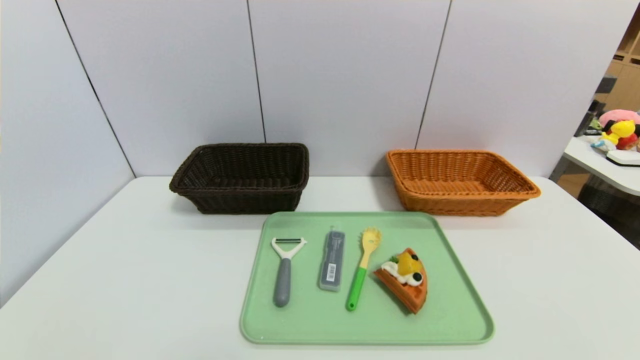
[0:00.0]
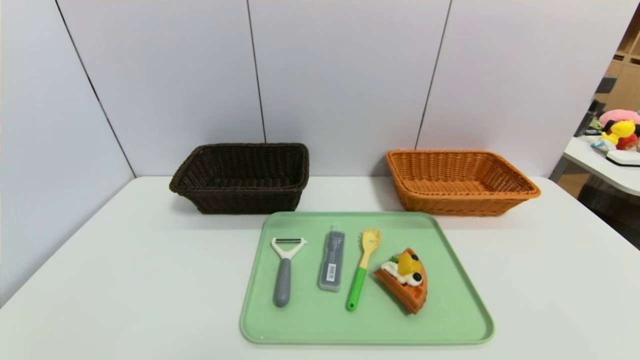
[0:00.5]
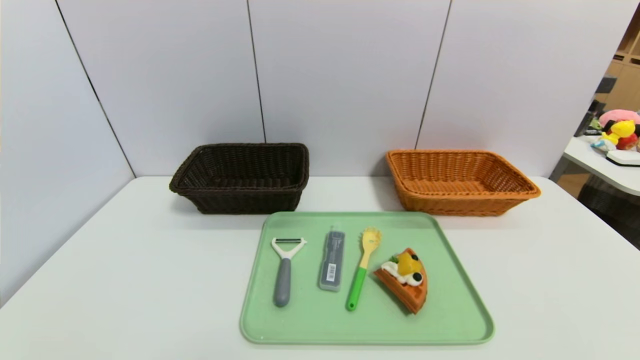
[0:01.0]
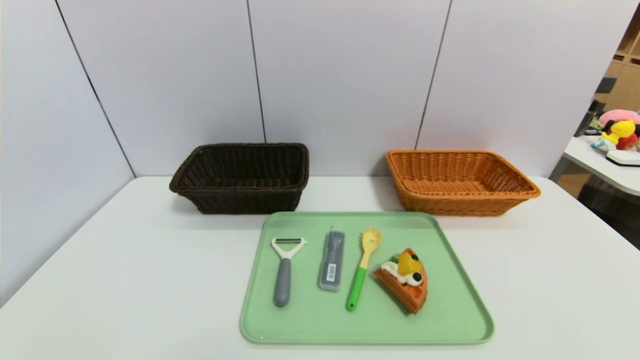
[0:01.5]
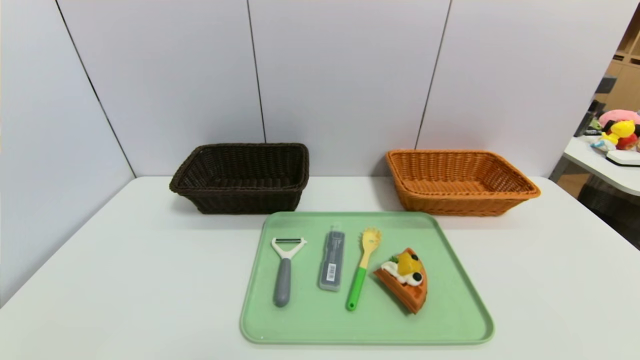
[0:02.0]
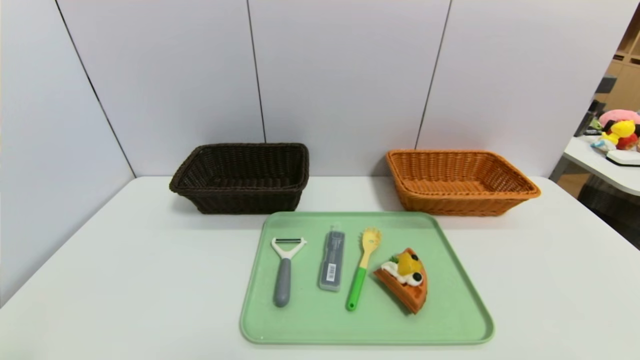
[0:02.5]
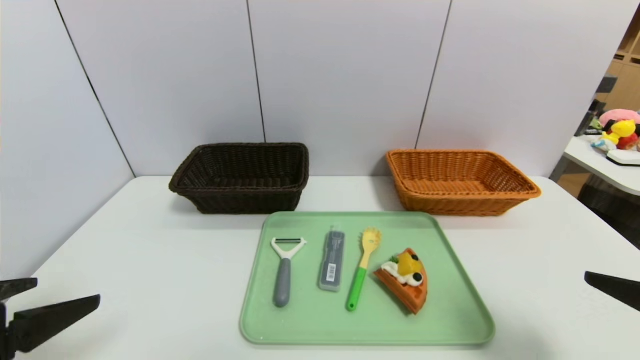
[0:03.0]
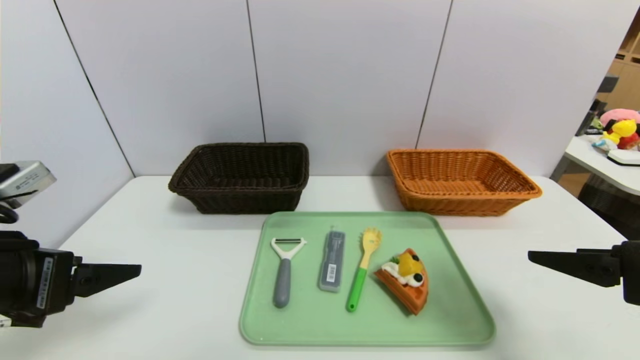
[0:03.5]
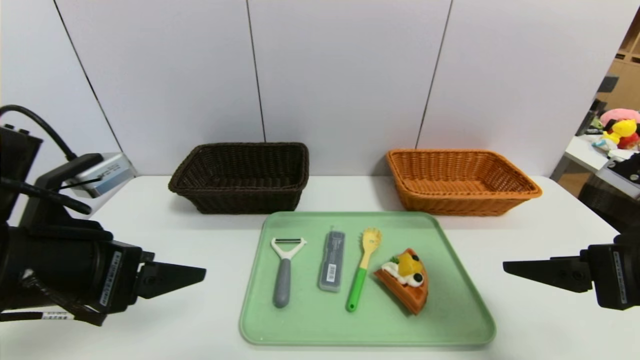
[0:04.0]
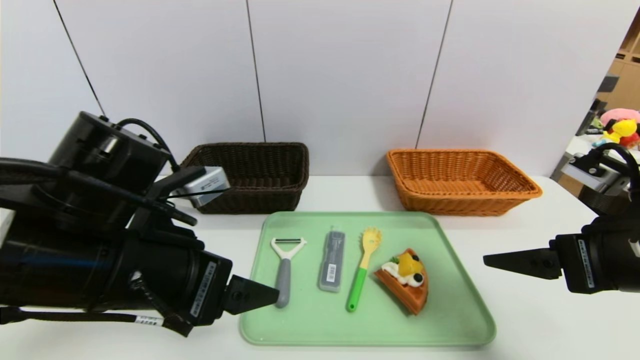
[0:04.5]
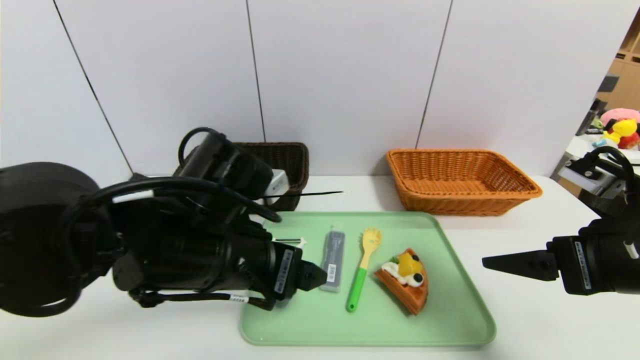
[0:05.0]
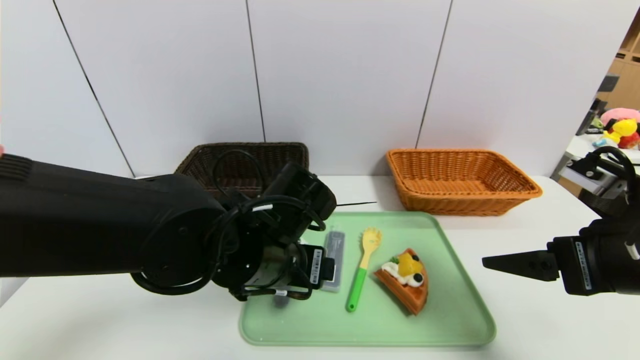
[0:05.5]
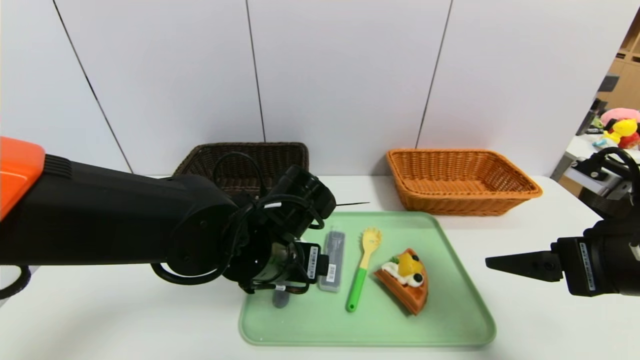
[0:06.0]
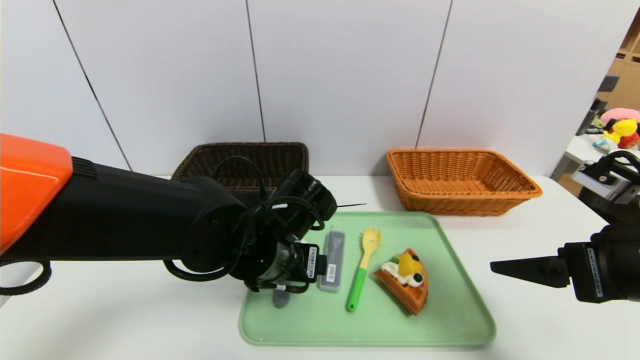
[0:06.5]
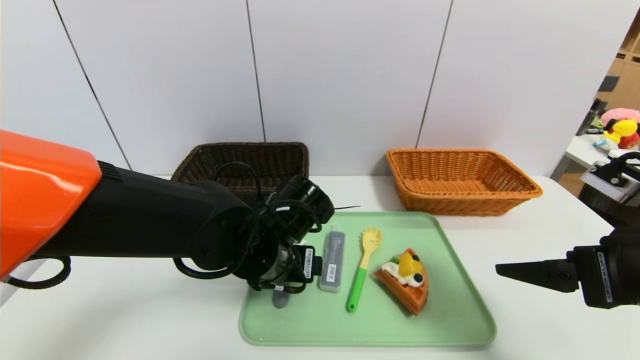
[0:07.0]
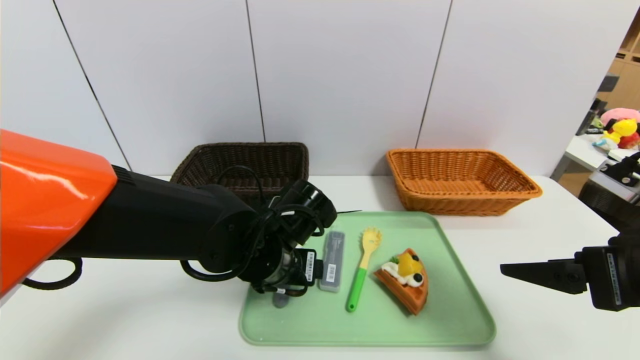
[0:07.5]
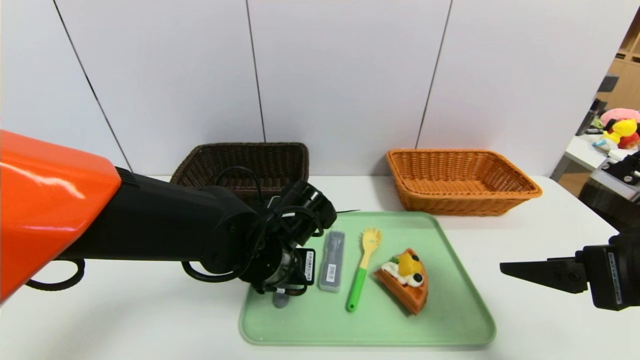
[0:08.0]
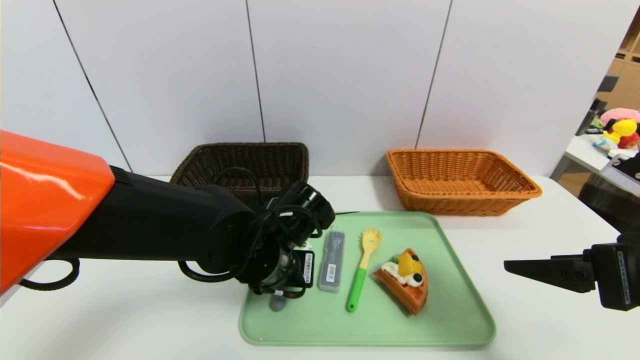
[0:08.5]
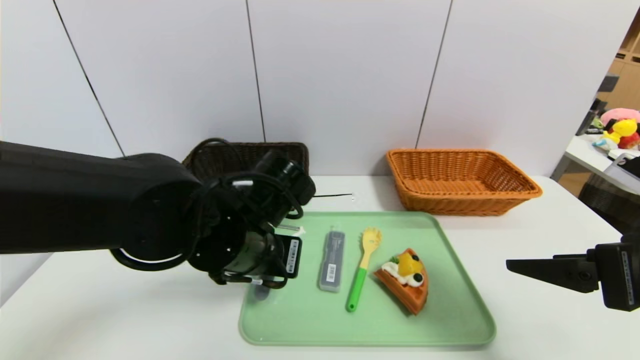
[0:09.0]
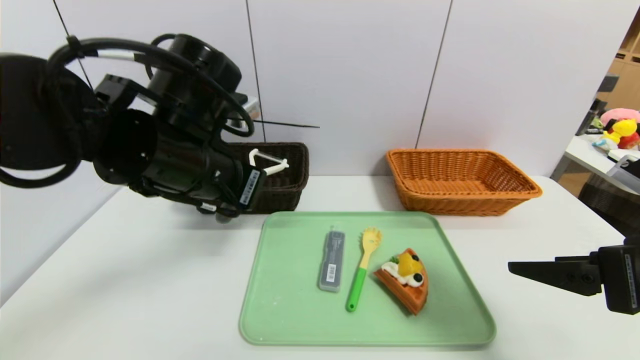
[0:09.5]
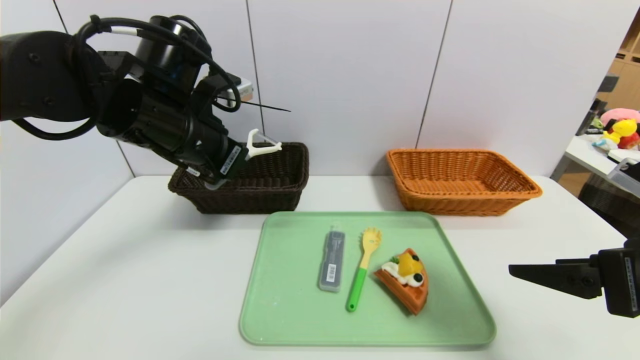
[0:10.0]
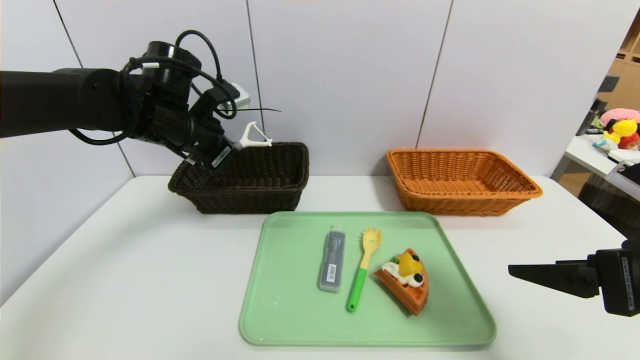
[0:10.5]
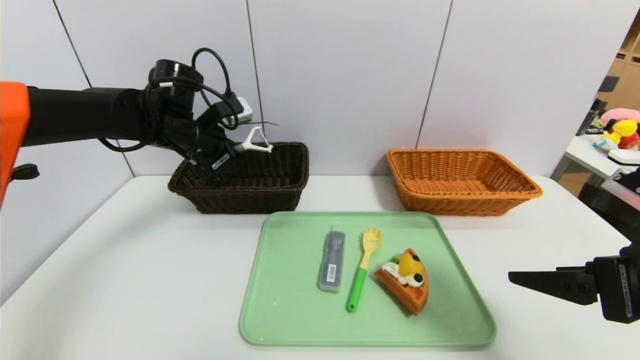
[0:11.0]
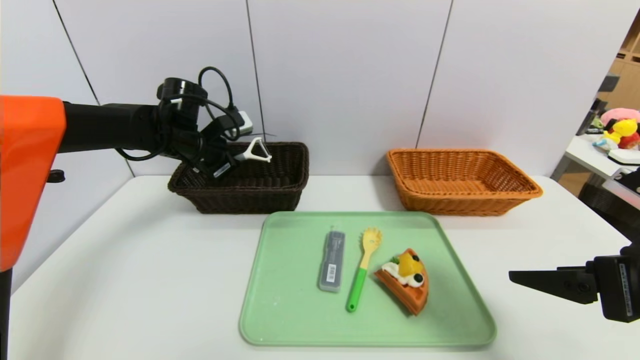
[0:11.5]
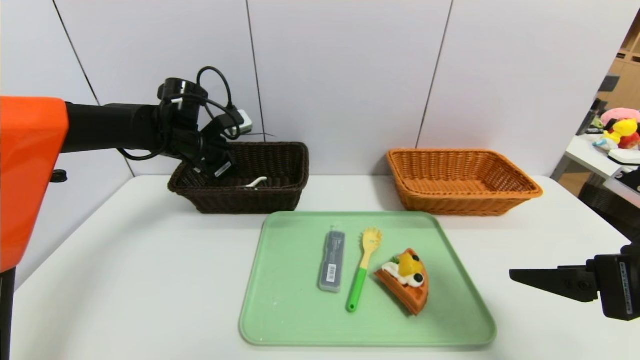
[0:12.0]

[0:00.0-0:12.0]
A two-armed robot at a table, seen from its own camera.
Task of the whole recording: place the food in the right basket with the right gripper, and place the non food items in the left basket with the left gripper.
0:02.0 to 0:04.0: The grippers both shift forward and upward by roughly 25 cm.
0:04.0 to 0:06.0: The left gripper travels to the right, forward and downward by some 20 cm.
0:06.0 to 0:08.0: The left gripper closes its fingers.
0:08.0 to 0:10.0: The left gripper moves upward and to the left, roughly 20 cm, and closes its fingers.
0:10.0 to 0:12.0: The left gripper moves forward, downward and to the left, approximately 15 cm, and opens.

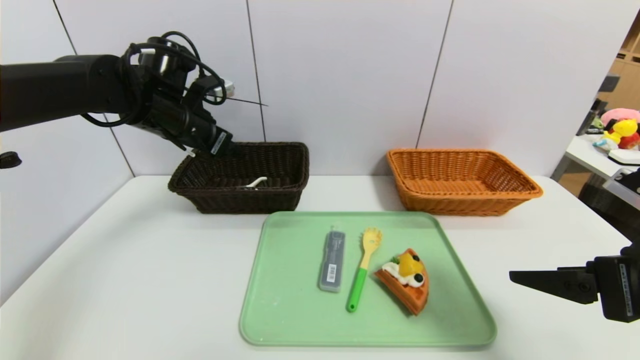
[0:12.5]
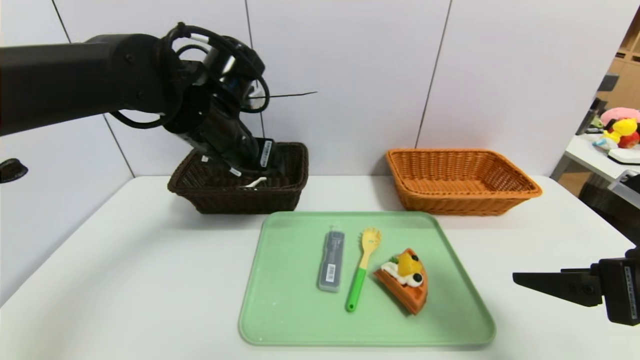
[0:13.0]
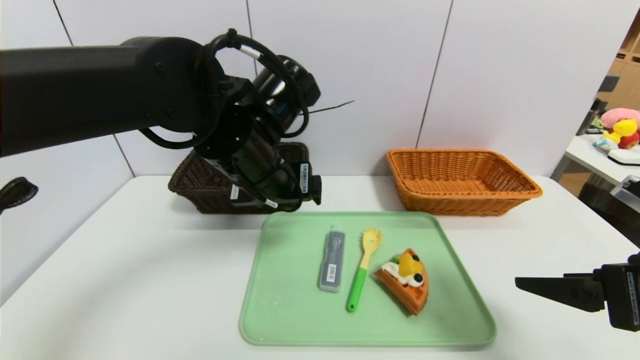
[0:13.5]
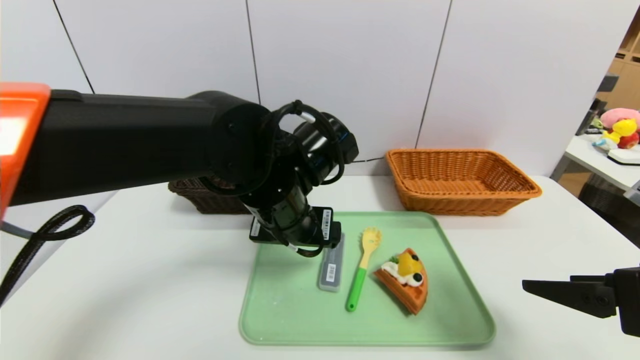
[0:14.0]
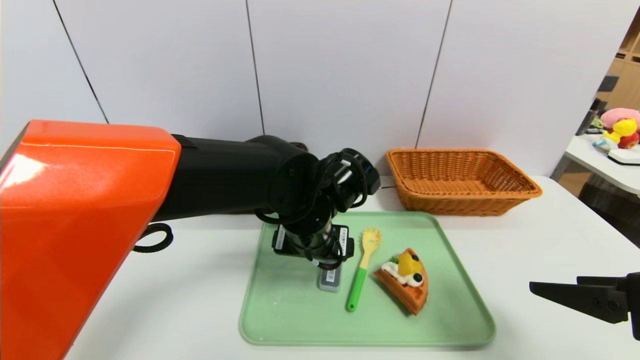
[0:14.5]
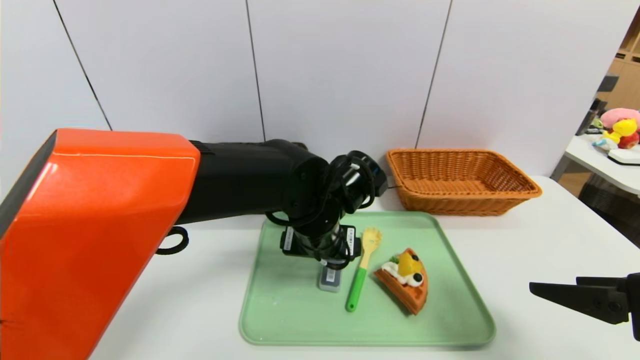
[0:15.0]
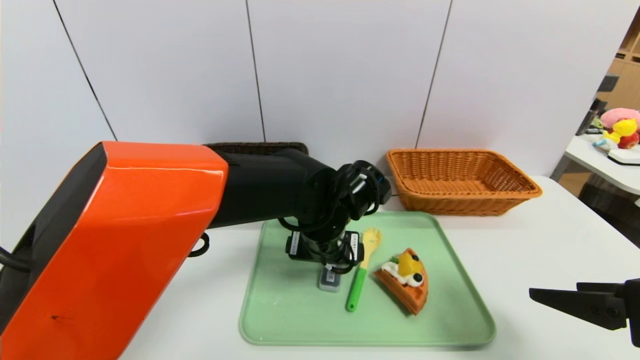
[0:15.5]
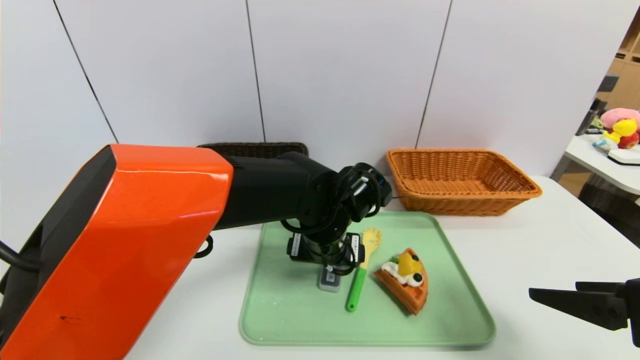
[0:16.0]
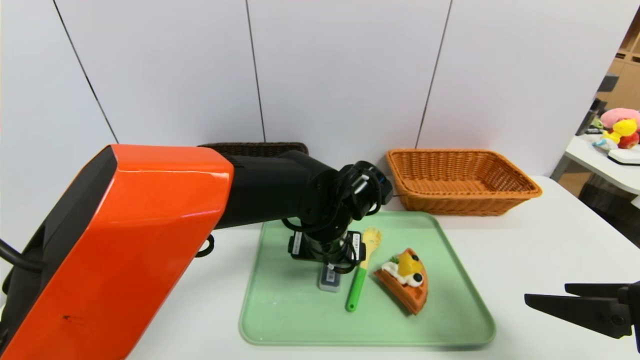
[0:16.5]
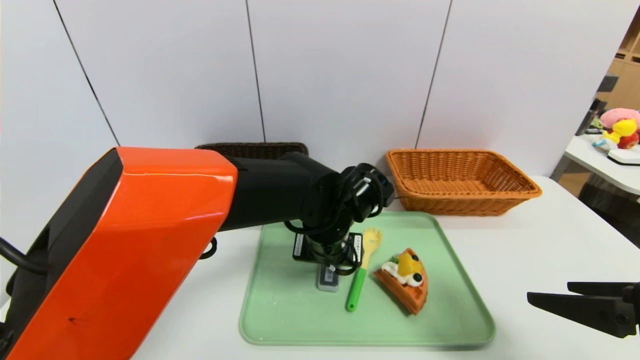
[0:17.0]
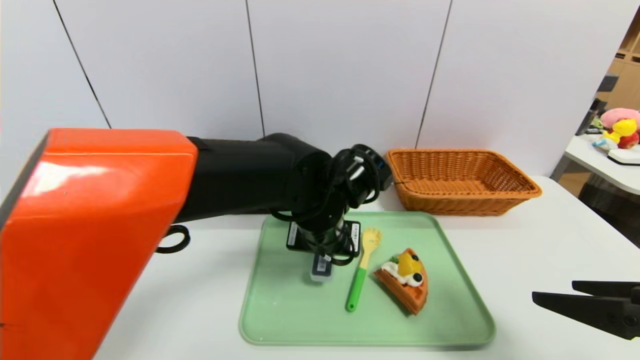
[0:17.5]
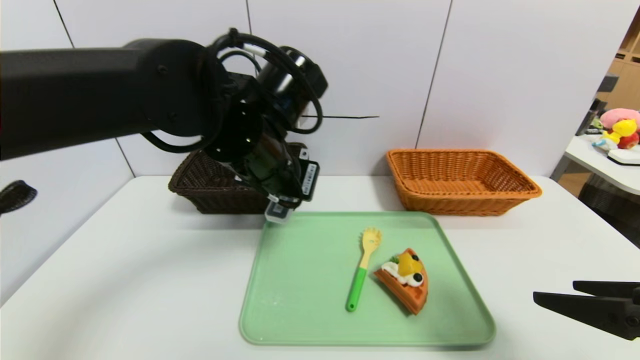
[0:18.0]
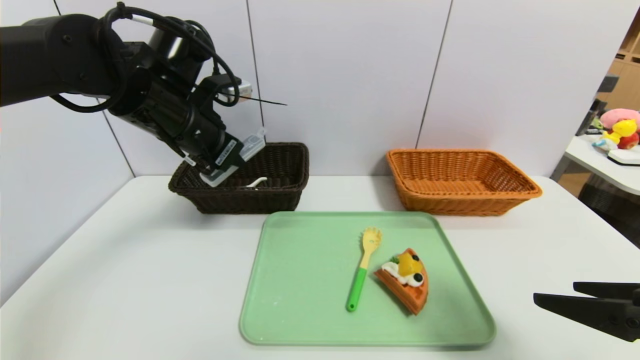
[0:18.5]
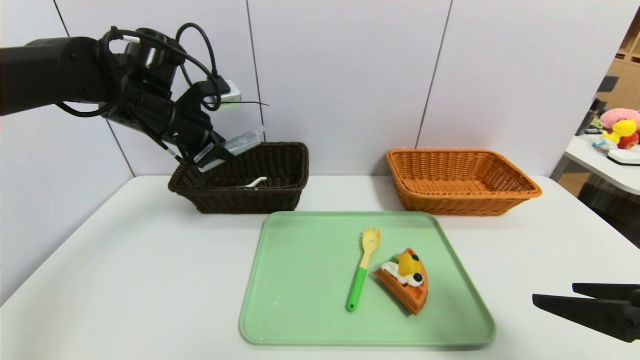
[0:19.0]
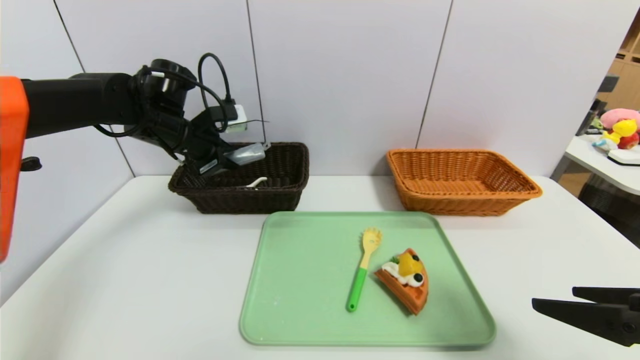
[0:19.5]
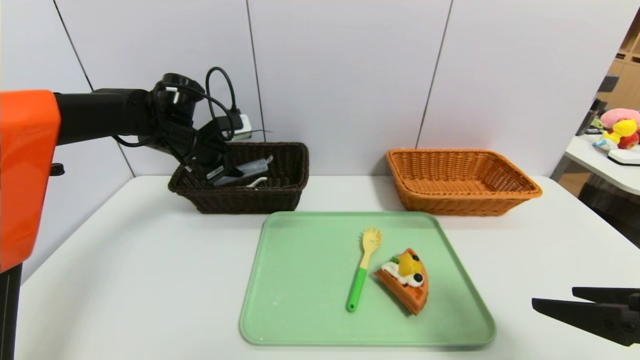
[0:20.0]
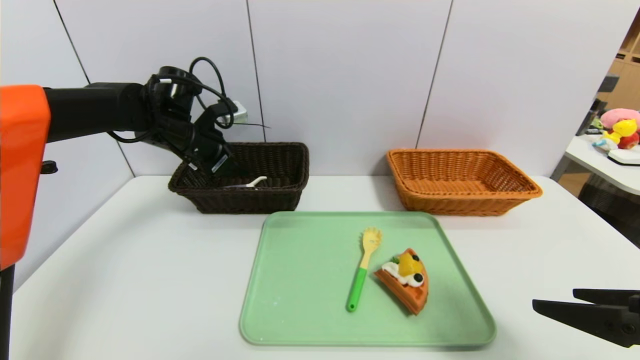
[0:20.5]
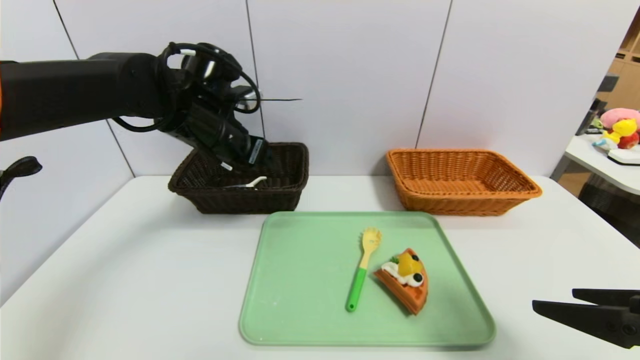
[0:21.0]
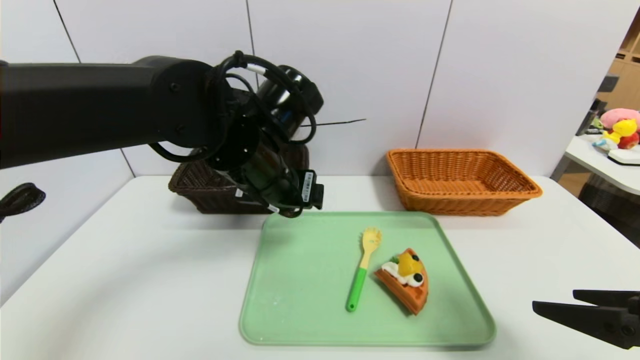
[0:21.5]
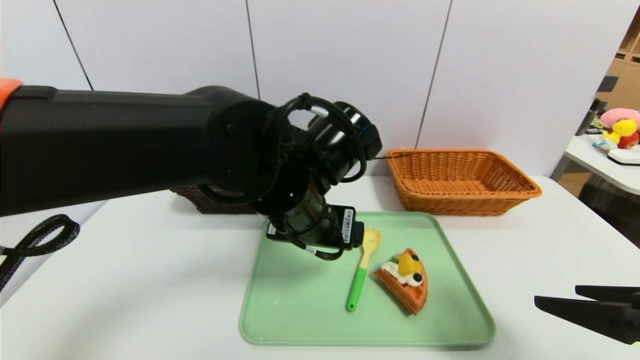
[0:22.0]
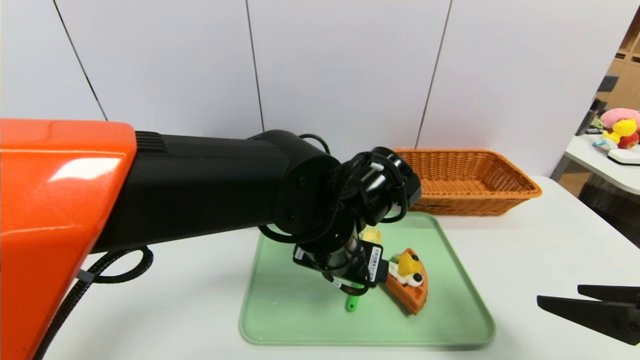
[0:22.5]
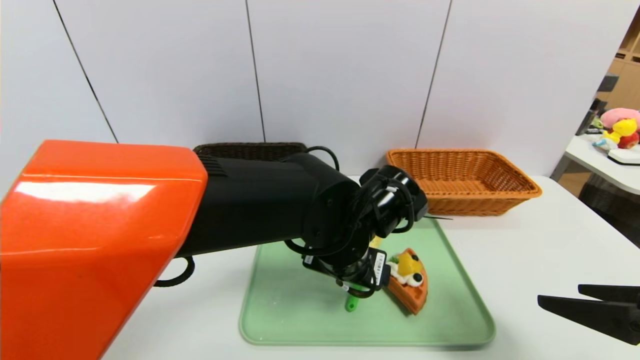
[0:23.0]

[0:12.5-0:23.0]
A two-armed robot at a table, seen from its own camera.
Task of the whole recording: place the food in the right basket with the right gripper, and place the non food items in the left basket with the left gripper.
Step, 0:13.5 to 0:20.0: Grasp the compass and put it in the left basket.
0:12.5 to 0:14.5: The left gripper travels to the right, backward and downward by approximately 25 cm.
0:14.5 to 0:16.5: The grippers move only a little.
0:16.5 to 0:19.0: The left gripper travels to the left and upward by some 25 cm, and closes its fingers.
0:19.0 to 0:21.0: The left gripper moves to the right, some 5 cm, and opens.
0:21.0 to 0:23.0: The left gripper travels to the right, backward and downward by roughly 25 cm.
